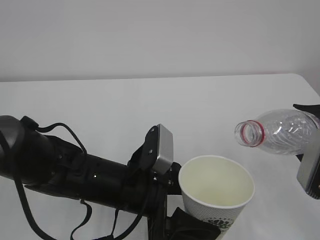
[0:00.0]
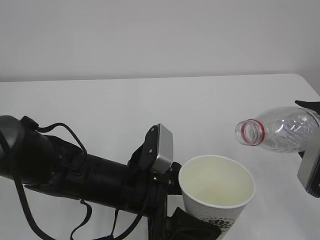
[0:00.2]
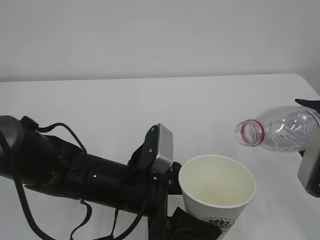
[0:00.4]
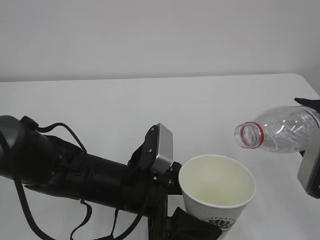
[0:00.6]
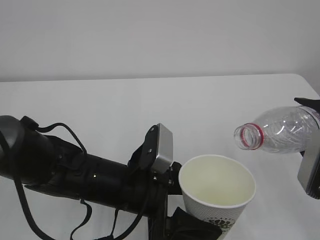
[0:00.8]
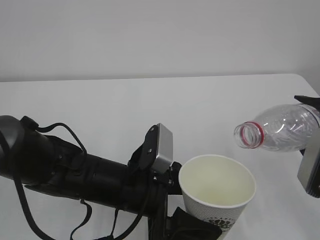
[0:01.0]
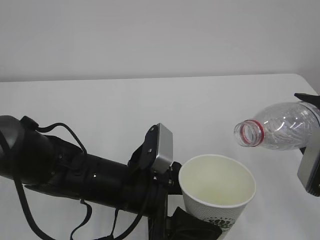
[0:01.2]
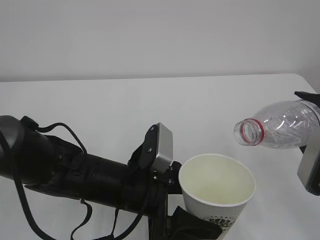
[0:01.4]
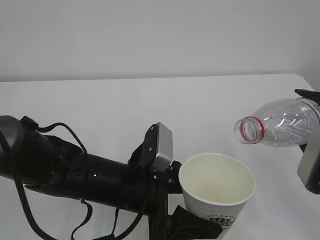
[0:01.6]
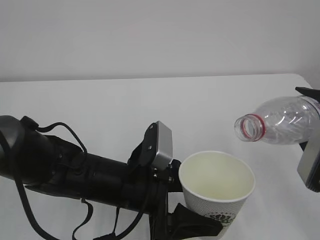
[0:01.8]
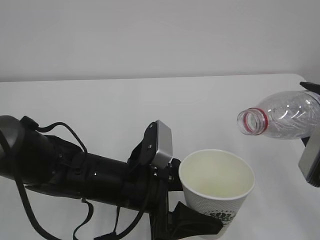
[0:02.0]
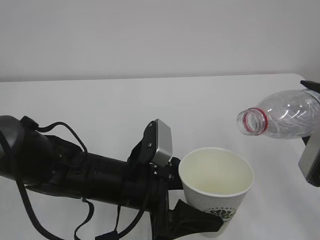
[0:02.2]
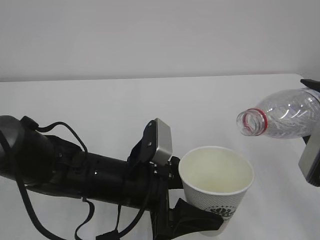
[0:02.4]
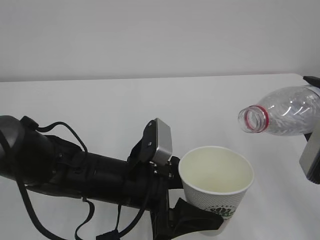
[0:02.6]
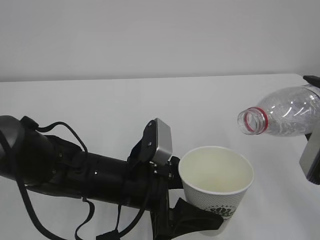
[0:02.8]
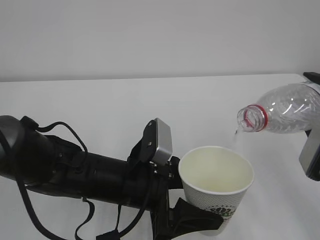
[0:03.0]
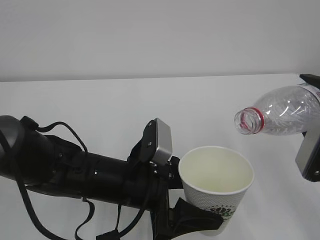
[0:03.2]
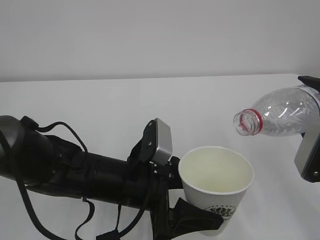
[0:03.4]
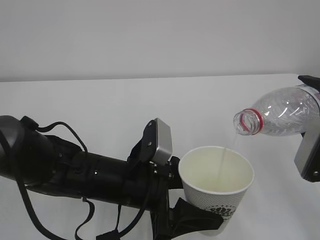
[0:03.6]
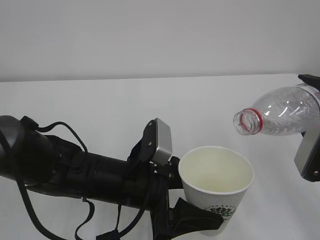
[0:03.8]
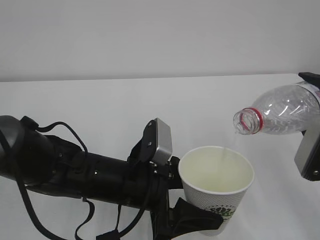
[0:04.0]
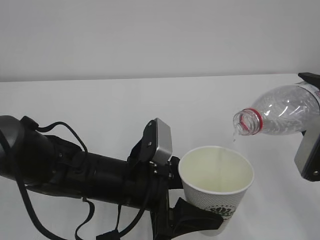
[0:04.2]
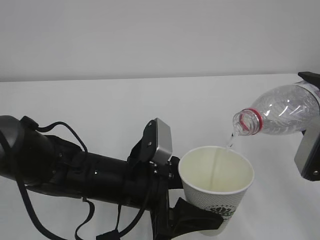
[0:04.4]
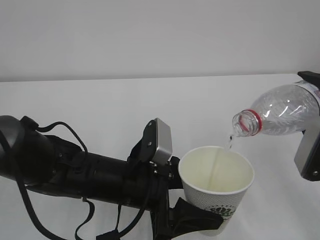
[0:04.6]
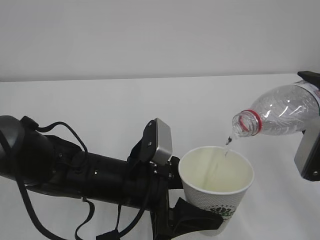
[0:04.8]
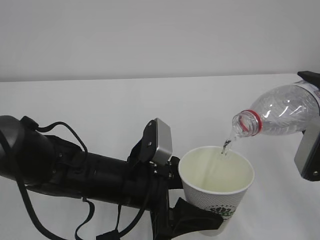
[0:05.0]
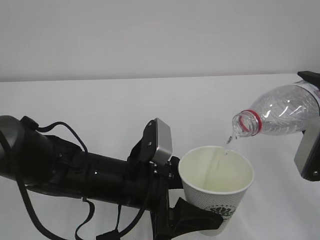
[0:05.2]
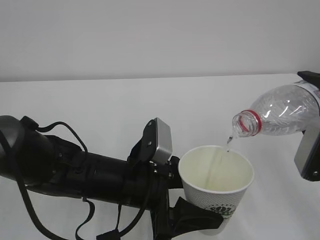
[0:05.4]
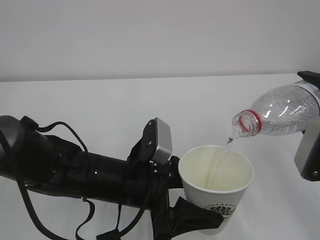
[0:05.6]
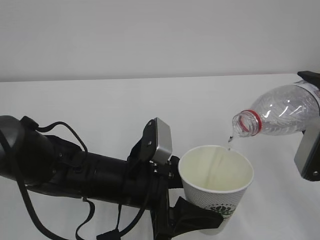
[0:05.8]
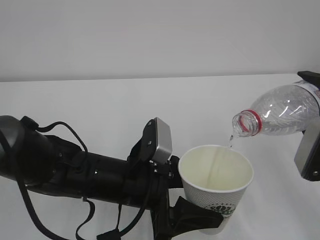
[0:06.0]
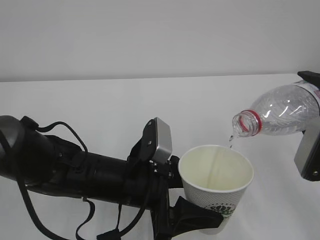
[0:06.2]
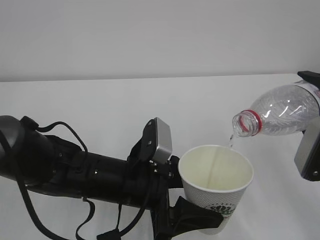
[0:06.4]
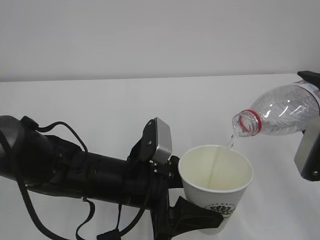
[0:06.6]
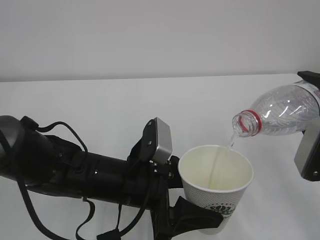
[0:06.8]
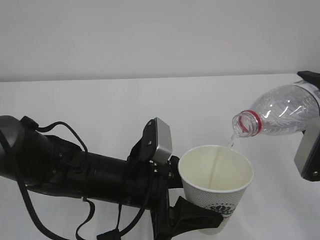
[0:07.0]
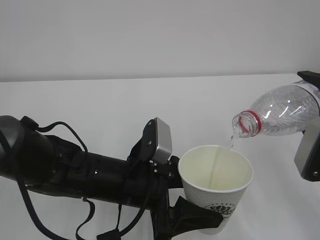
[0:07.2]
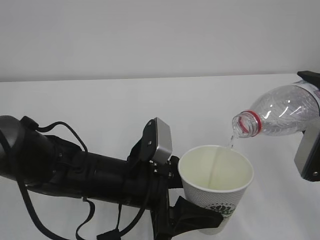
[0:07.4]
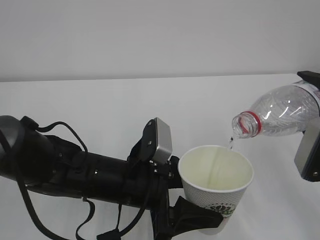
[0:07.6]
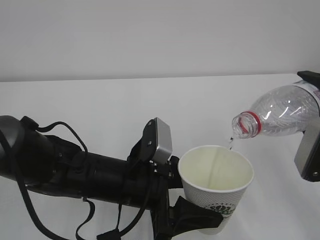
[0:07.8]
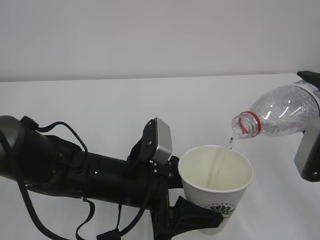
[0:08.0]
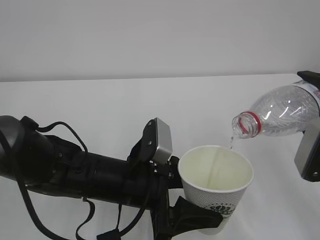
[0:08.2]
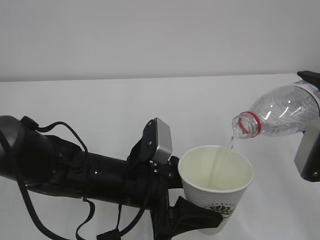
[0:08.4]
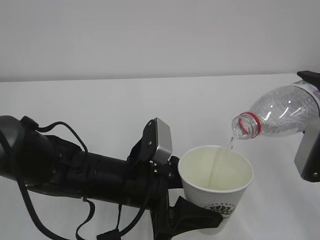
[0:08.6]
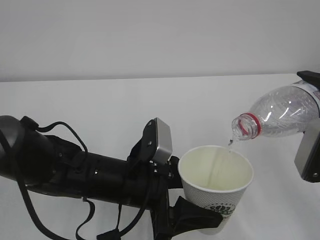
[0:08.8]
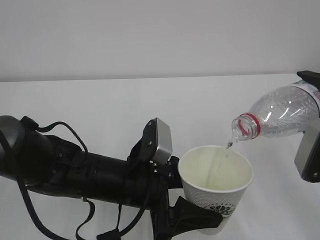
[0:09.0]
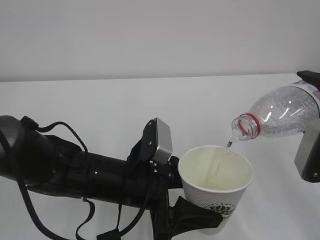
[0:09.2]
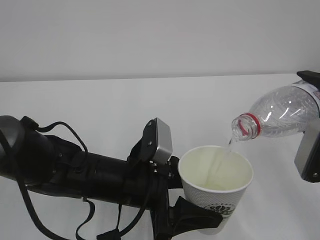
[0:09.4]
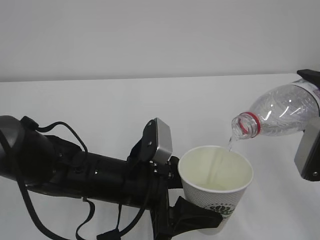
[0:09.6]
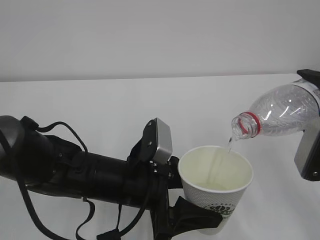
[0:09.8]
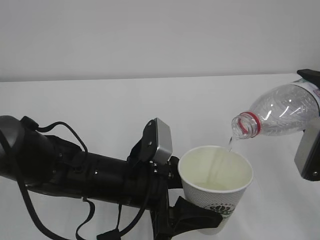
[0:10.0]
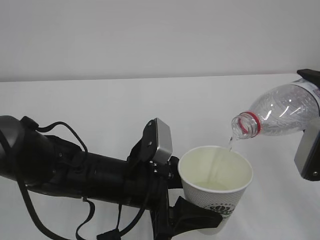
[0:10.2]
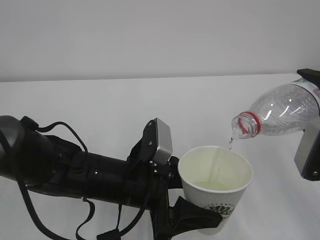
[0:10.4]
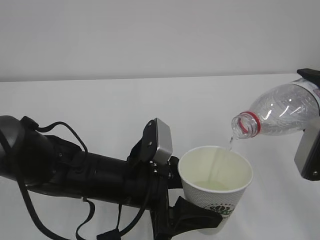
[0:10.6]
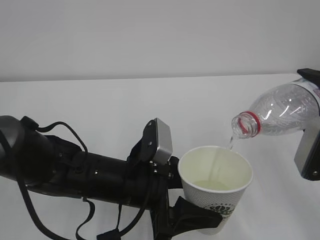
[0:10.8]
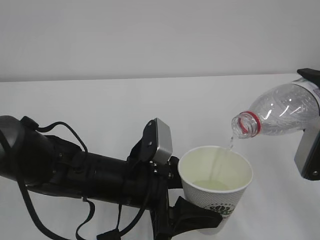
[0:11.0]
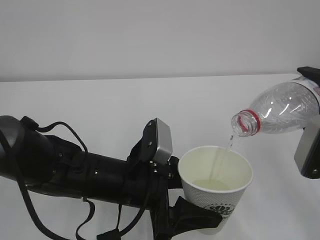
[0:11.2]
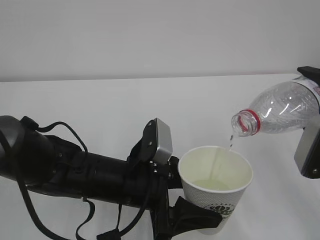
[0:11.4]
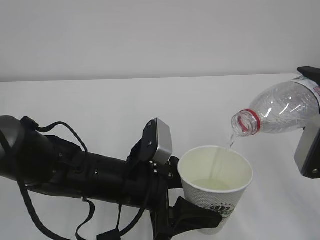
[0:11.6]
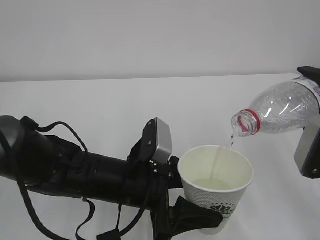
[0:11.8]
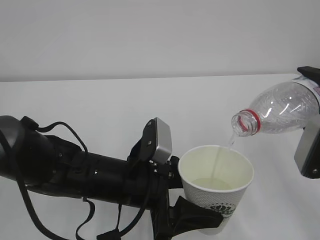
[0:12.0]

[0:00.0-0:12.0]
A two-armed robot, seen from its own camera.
0:00.0 to 0:03.0: The grippers move only a little.
0:03.0 to 0:07.6: Neither gripper changes place.
0:07.6 to 0:12.0: The two grippers keep their place.

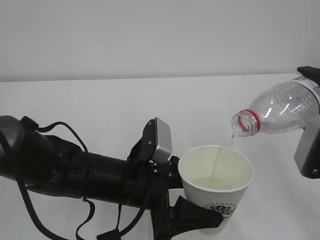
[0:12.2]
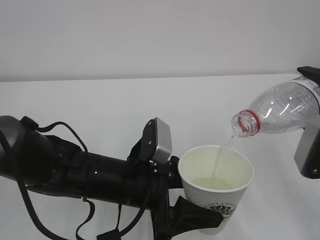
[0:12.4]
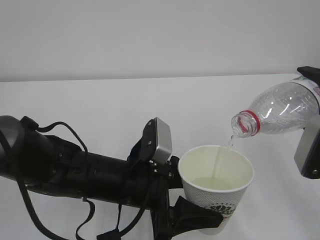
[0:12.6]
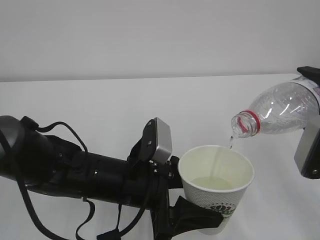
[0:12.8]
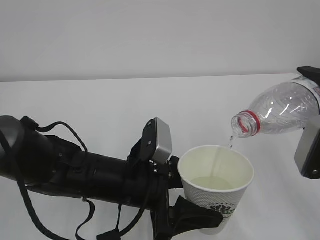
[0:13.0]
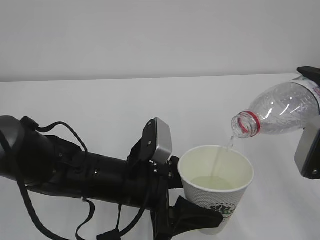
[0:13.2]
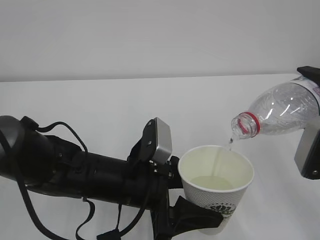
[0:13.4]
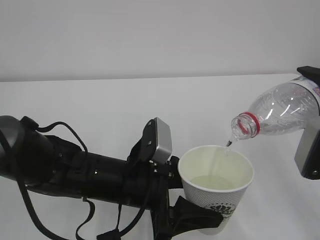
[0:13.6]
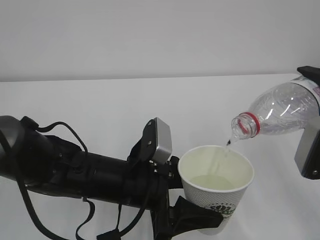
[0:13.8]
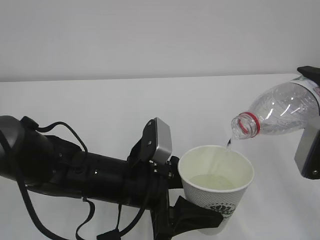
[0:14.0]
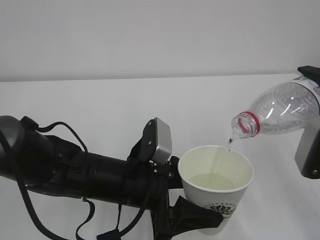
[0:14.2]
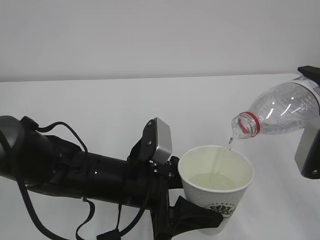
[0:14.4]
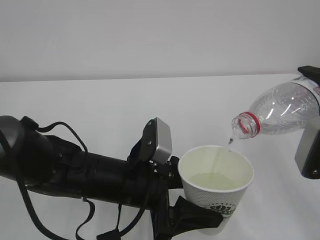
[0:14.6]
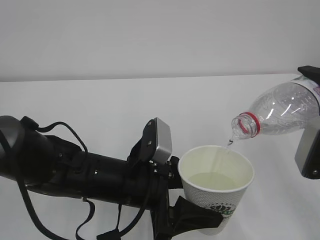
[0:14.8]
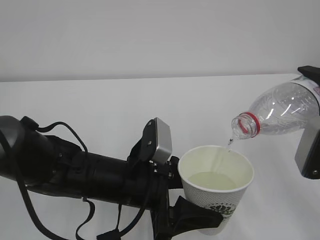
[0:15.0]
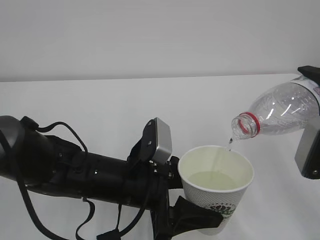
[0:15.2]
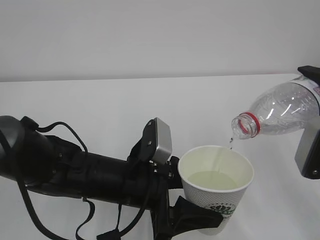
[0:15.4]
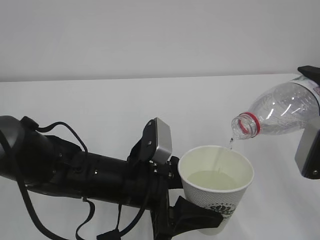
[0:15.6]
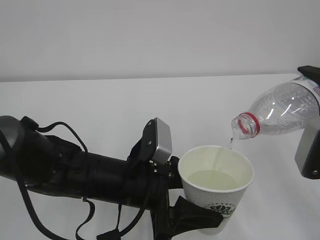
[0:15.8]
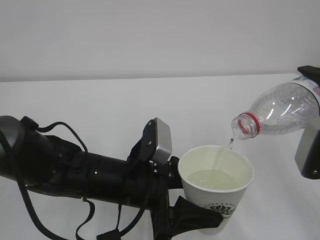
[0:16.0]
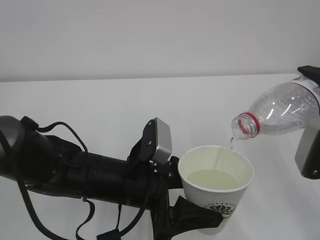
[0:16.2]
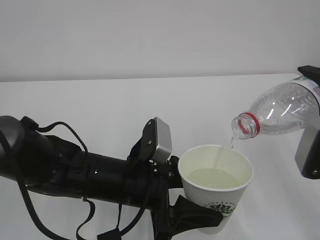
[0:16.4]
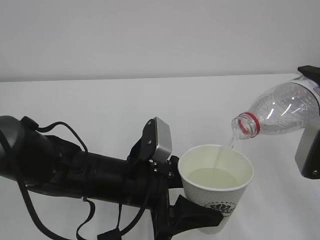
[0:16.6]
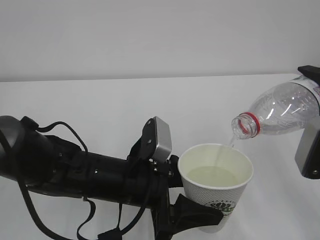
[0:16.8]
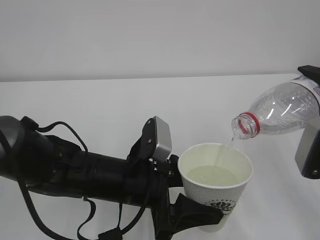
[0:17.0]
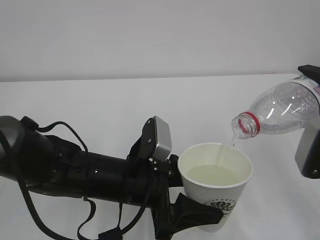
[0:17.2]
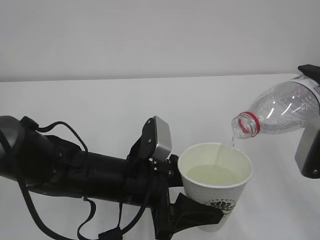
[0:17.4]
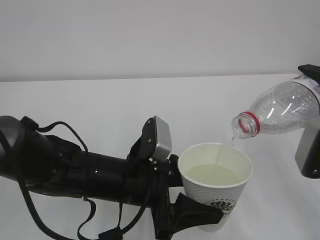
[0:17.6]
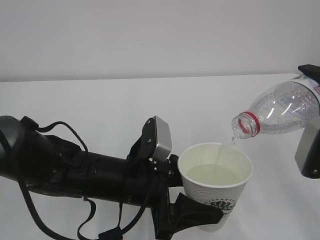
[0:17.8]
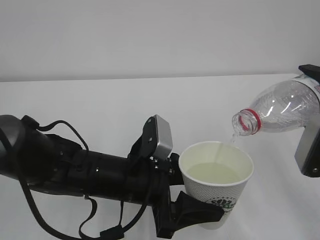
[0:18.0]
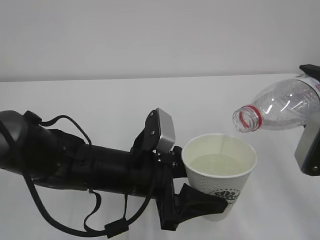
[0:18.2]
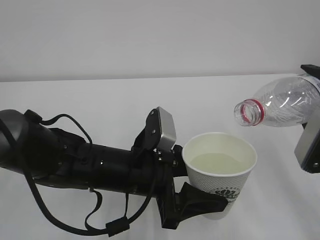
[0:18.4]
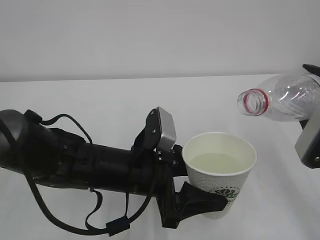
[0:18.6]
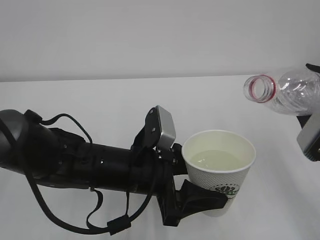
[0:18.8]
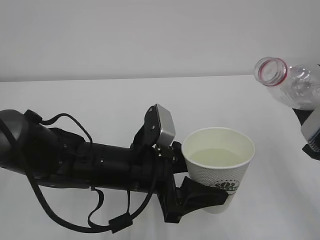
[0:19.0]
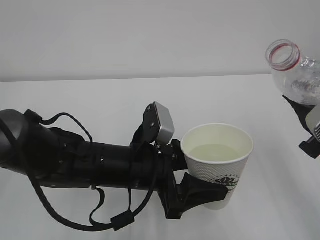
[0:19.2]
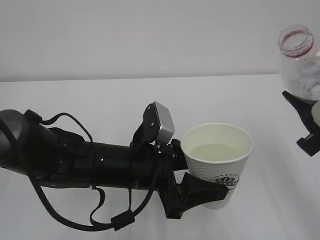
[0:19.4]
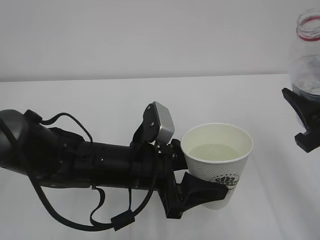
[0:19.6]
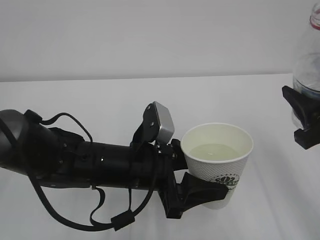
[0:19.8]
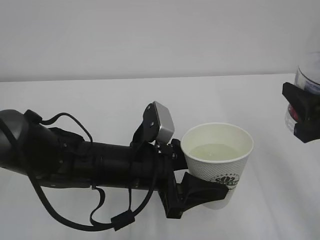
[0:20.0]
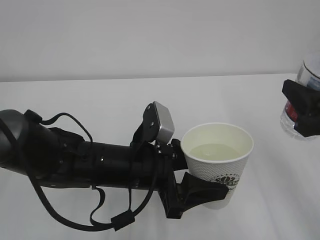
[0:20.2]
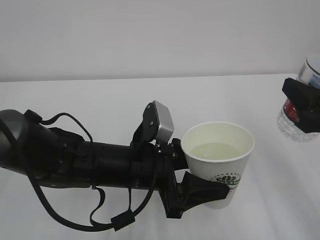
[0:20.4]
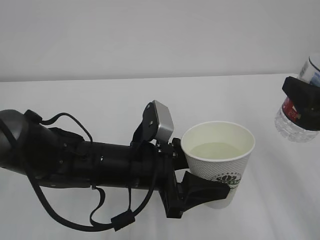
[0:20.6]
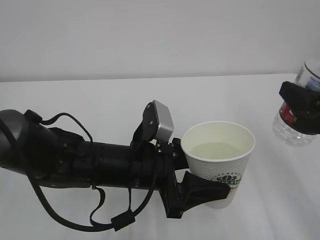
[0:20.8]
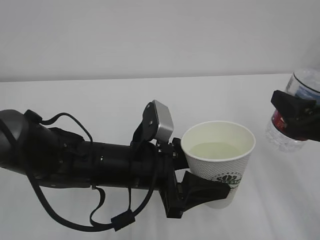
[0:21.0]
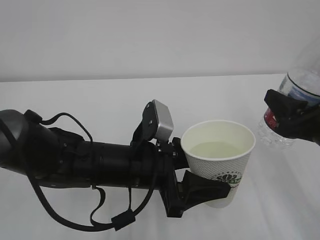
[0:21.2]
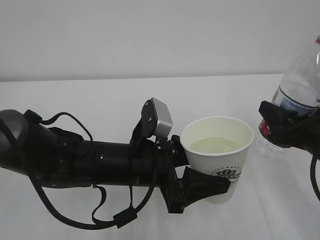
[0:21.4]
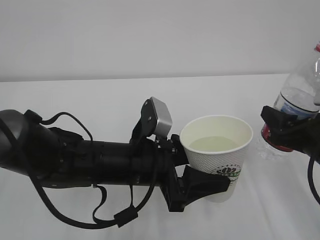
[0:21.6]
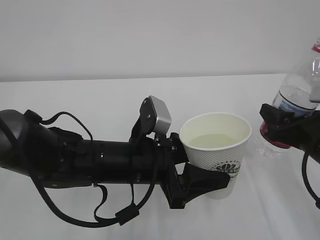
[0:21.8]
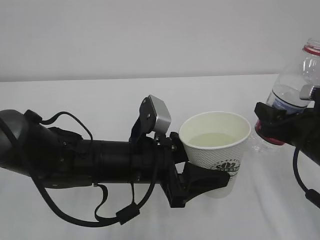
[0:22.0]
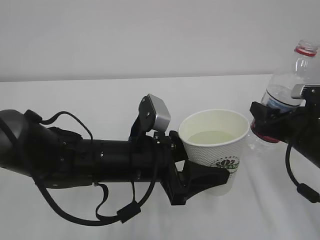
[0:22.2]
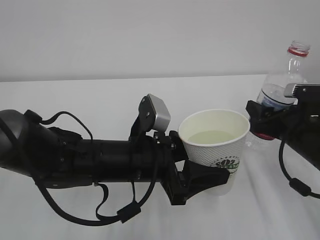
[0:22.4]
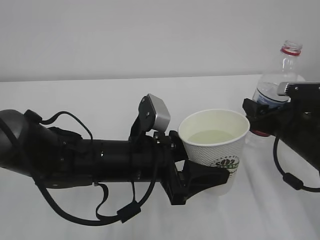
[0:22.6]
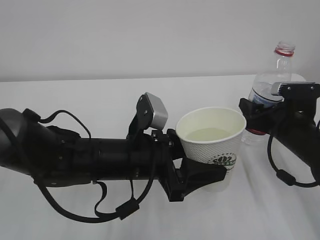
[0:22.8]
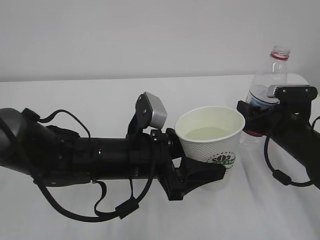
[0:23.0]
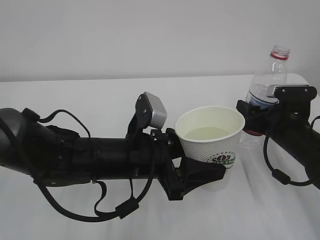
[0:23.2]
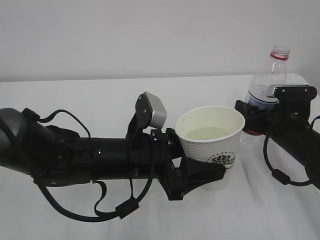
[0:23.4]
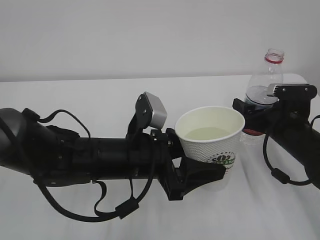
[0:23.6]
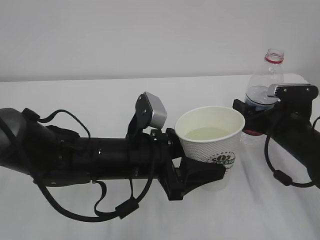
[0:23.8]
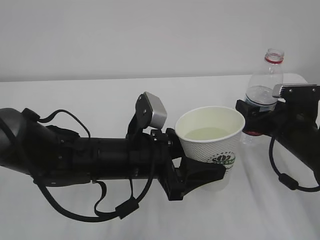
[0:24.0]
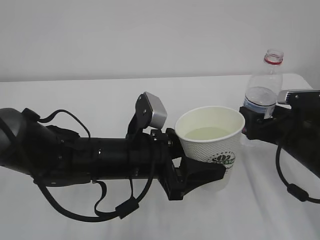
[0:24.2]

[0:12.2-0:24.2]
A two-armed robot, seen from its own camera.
0:12.2 to 0:18.2: Both grippers stay about where they are.
0:21.2 to 0:22.6: The right gripper moves forward and downward, roughly 10 cm.
0:22.6 to 0:24.2: The right gripper opens its fingers.
